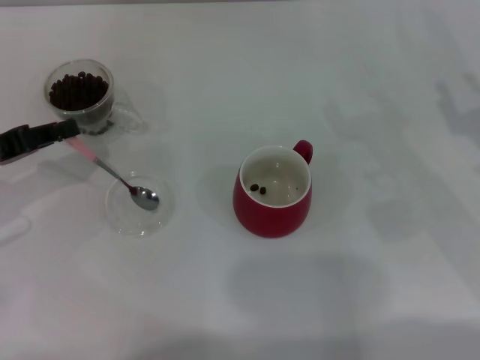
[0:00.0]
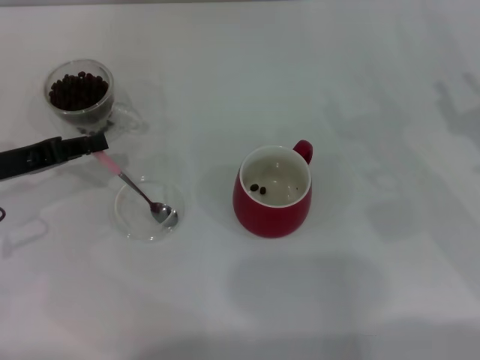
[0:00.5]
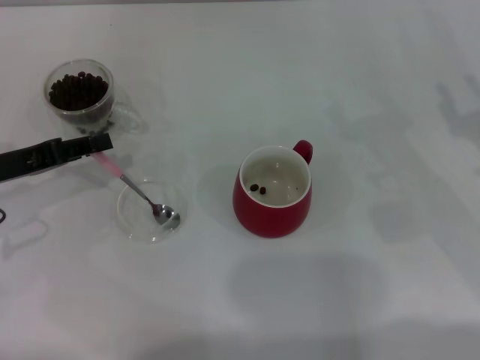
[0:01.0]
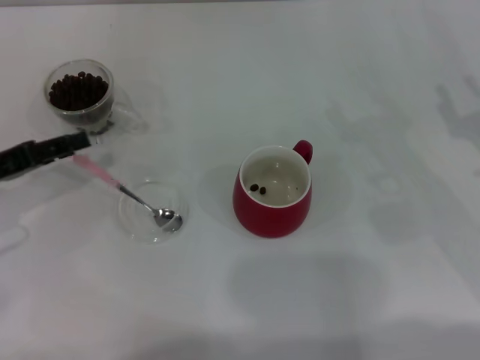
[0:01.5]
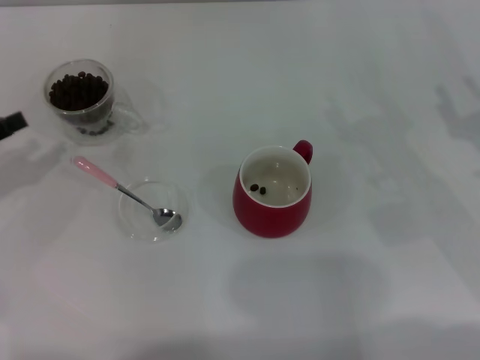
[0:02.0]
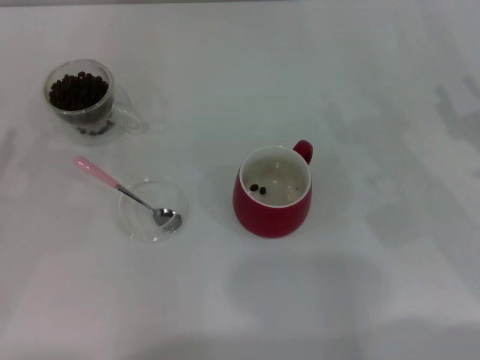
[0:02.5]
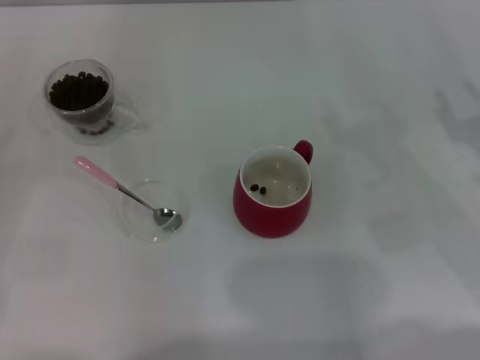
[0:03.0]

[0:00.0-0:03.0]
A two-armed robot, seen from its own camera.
Task of the whole recording: Use a pink spoon to take out the coffee beans from the glass and pour them into the red cup.
0:00.0 to 0:01.5: The left gripper opens its fingers.
0:01.5 to 0:03.0: The left gripper travels to the left and backward by approximately 10 cm.

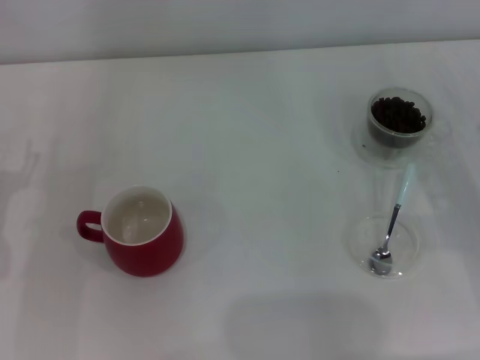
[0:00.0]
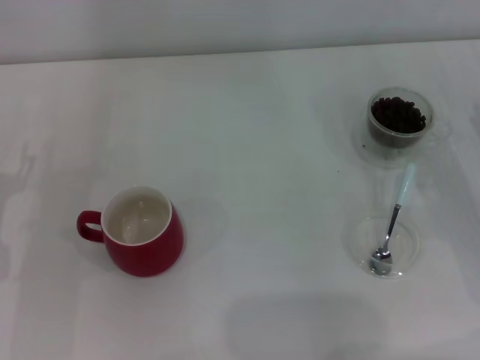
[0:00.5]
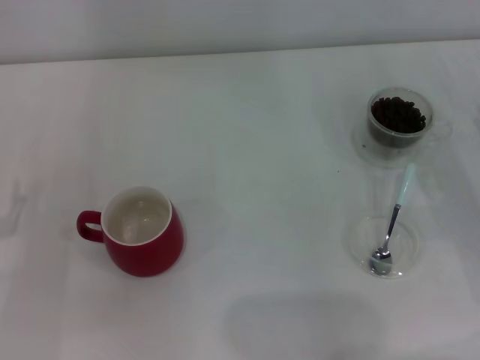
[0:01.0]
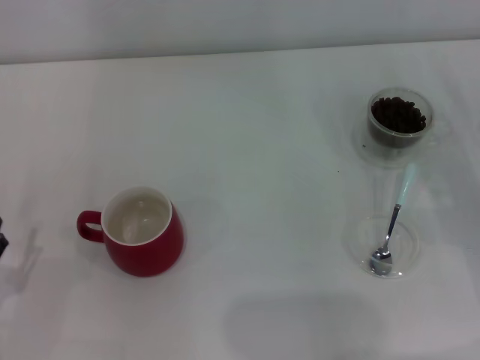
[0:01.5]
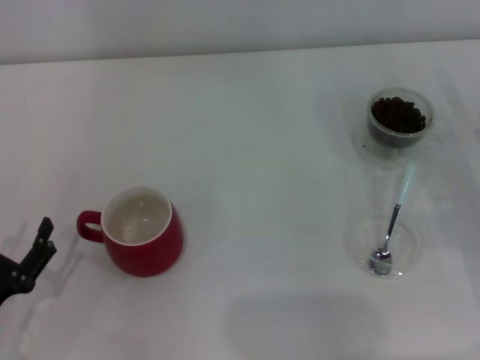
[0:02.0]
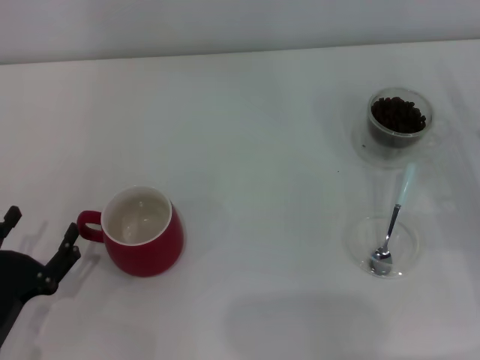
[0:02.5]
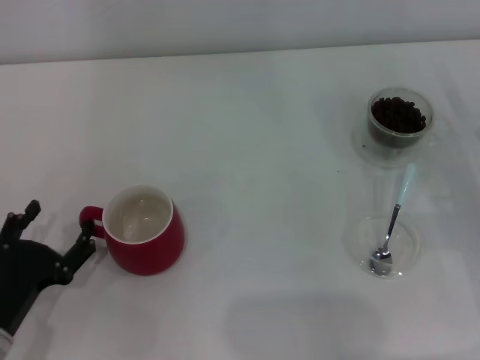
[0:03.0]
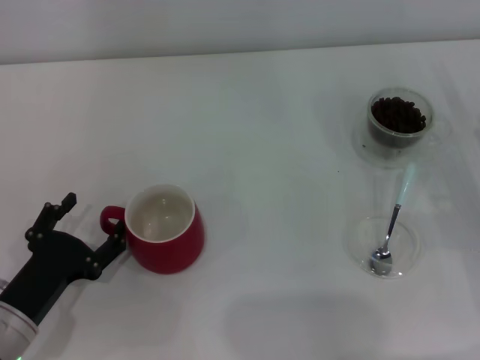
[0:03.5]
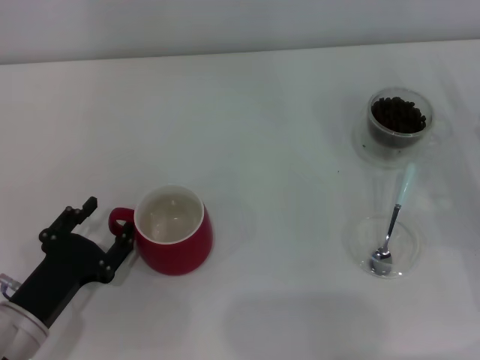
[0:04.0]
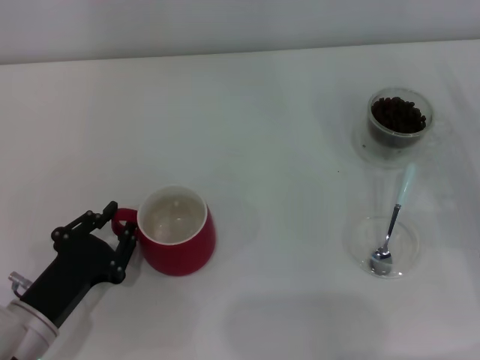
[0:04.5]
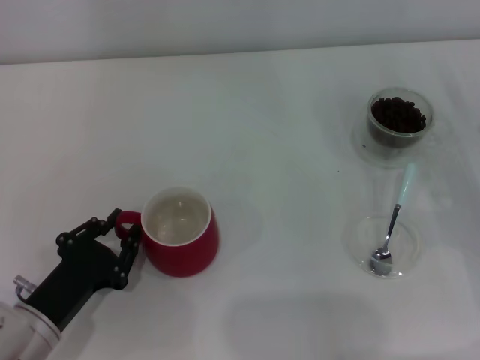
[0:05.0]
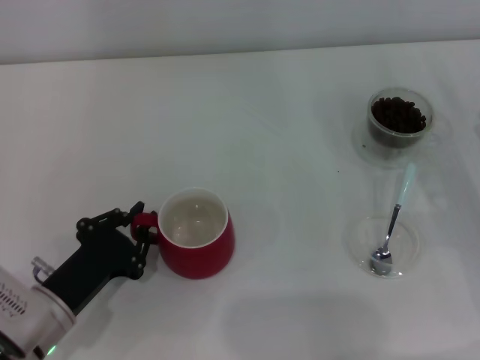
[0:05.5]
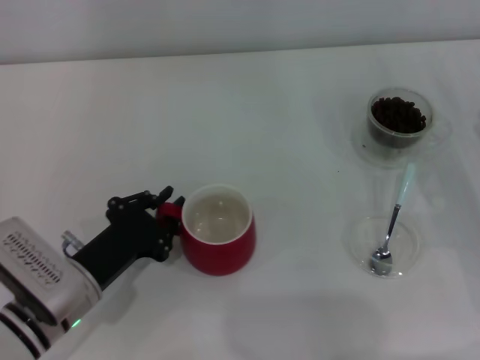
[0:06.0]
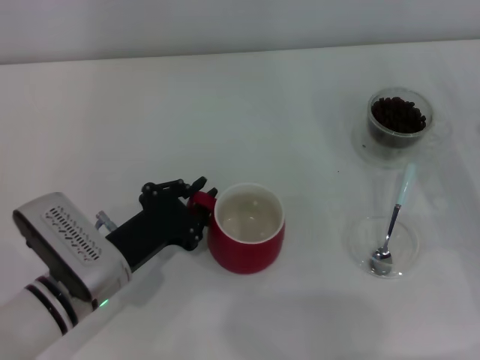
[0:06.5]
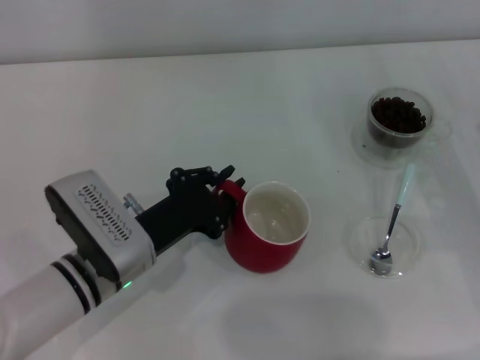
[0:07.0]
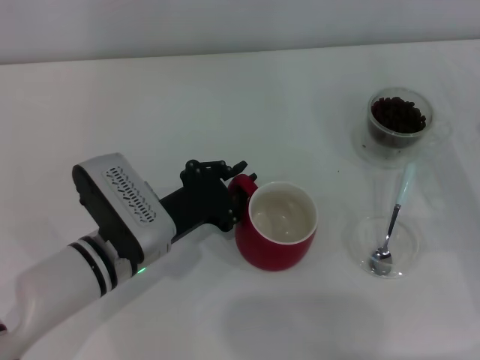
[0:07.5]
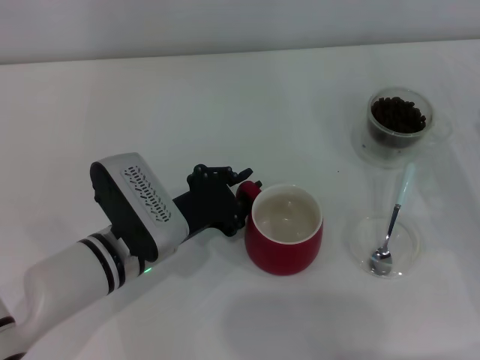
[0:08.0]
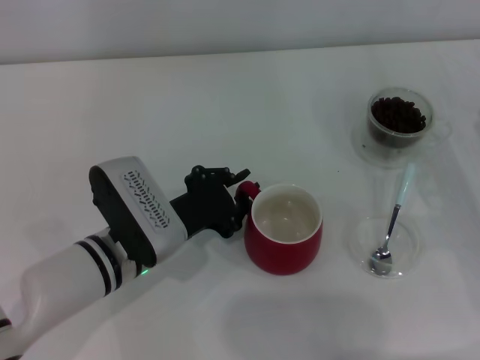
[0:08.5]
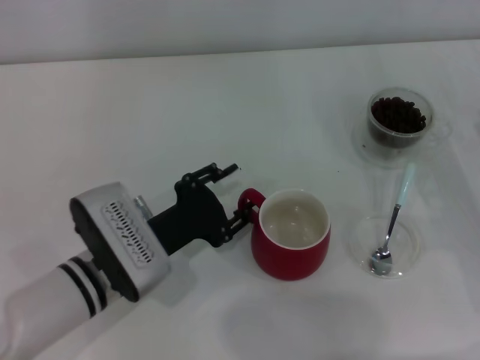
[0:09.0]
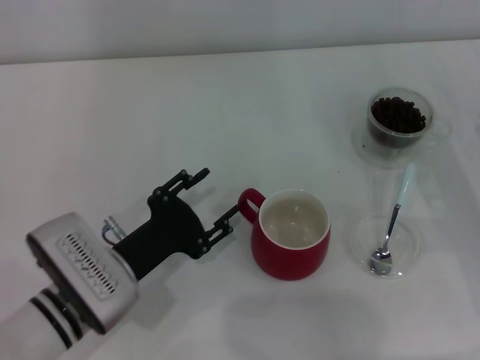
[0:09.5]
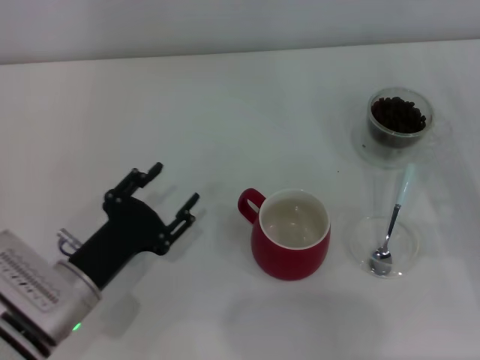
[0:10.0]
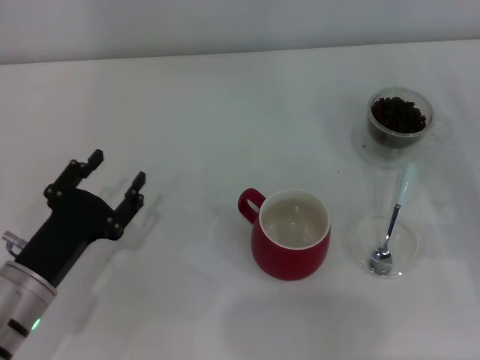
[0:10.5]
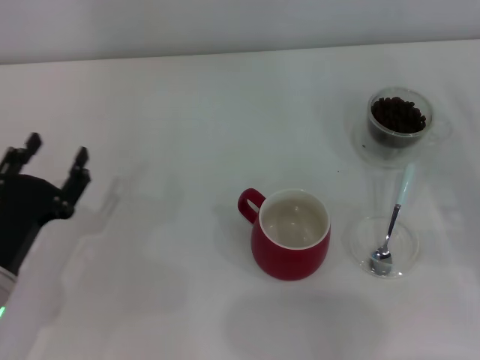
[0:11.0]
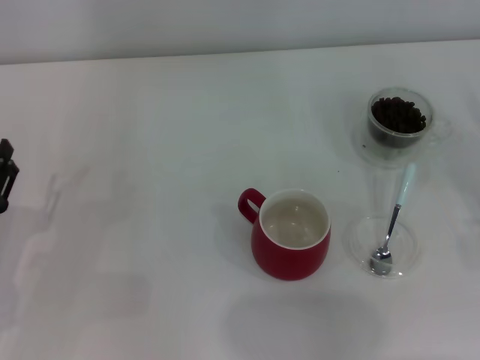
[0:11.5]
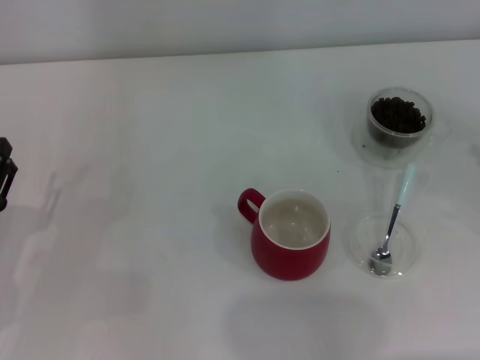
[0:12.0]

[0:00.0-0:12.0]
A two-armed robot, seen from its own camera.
Task of the whole recording: Use a blue spoon to take out the coffee beans from the glass and pour them into the red cup.
Step, 0:00.0 to 0:09.5: Move the cup to the center of view with the left gripper.
0:00.0 to 0:02.0: The left gripper travels backward by some 10 cm.
0:02.0 to 0:04.0: The left gripper changes place by approximately 5 cm.
0:04.0 to 0:06.0: The left gripper moves roughly 5 cm, and closes.
0:06.0 to 0:08.0: The left gripper is displaced to the right by roughly 10 cm.
0:08.0 to 0:10.0: The left gripper moves to the left and backward, approximately 10 cm, and opens.
0:10.0 to 0:12.0: The right gripper moves to the right, approximately 5 cm. Meanwhile the left gripper travels to the left by approximately 10 cm.

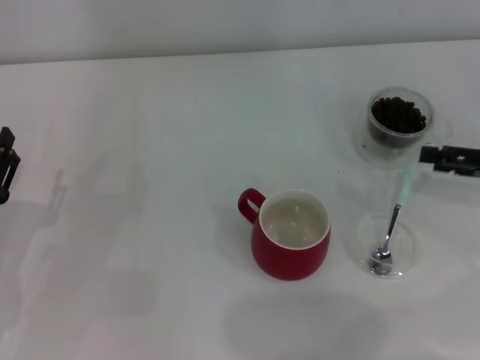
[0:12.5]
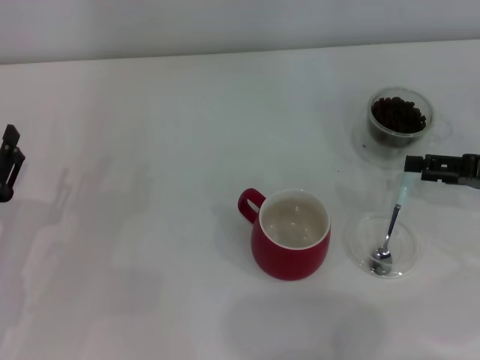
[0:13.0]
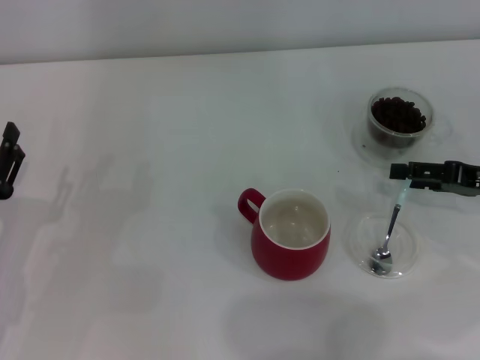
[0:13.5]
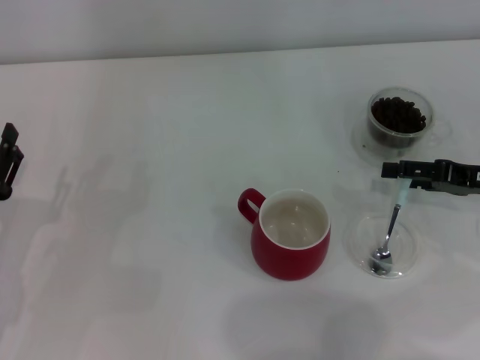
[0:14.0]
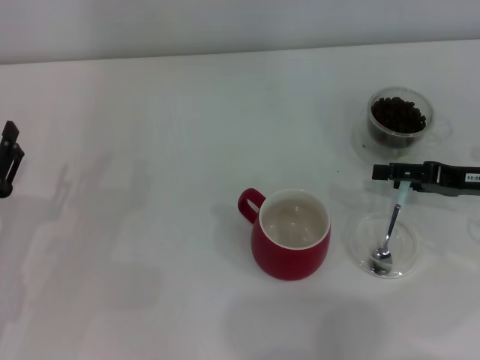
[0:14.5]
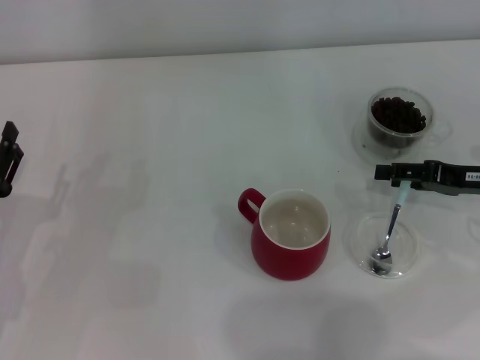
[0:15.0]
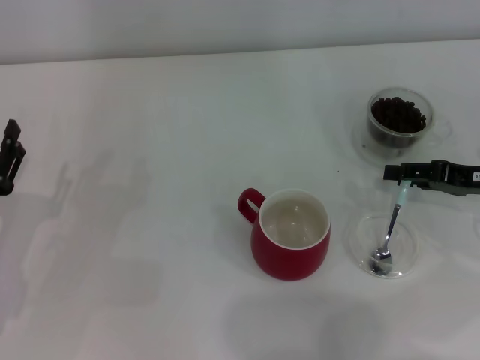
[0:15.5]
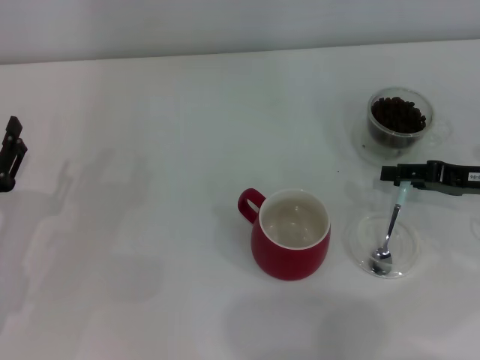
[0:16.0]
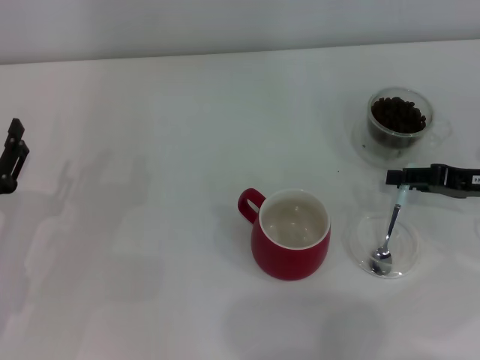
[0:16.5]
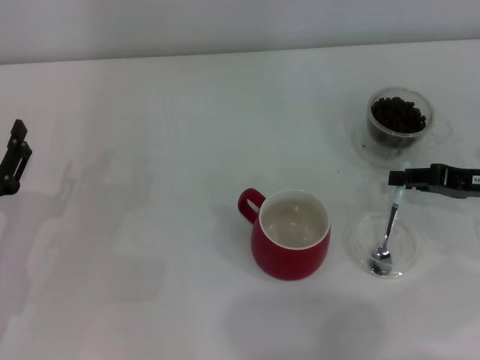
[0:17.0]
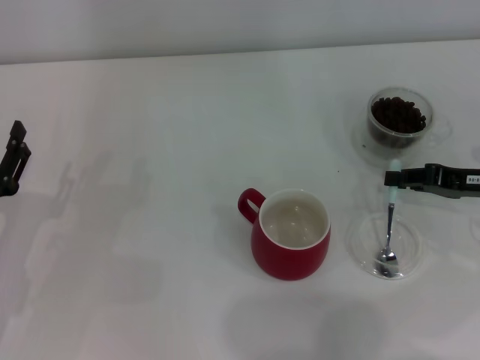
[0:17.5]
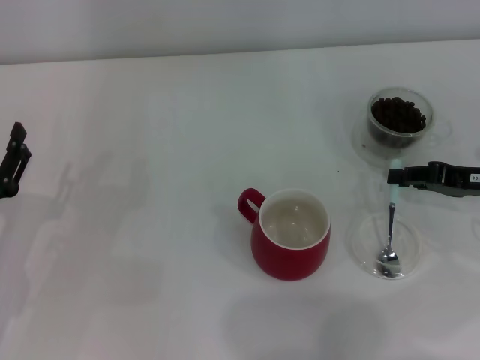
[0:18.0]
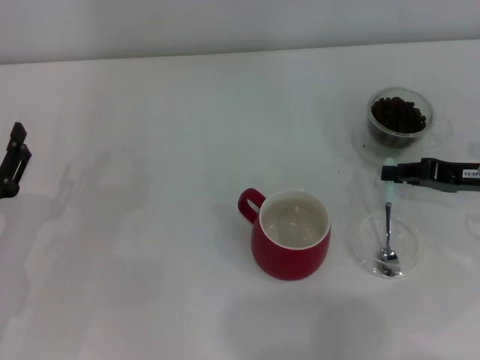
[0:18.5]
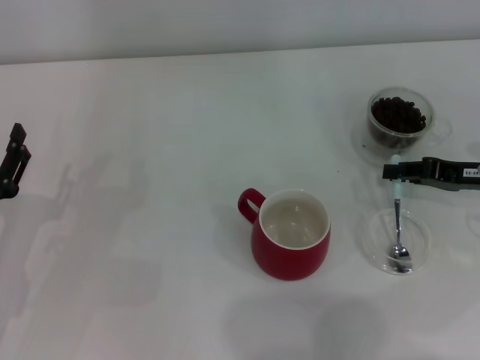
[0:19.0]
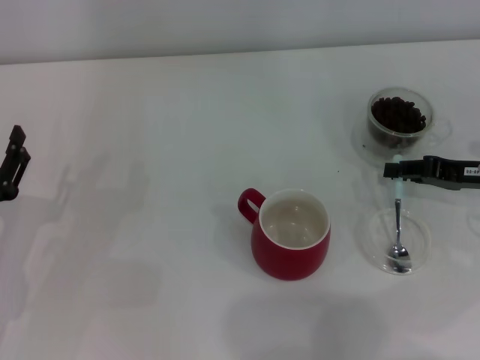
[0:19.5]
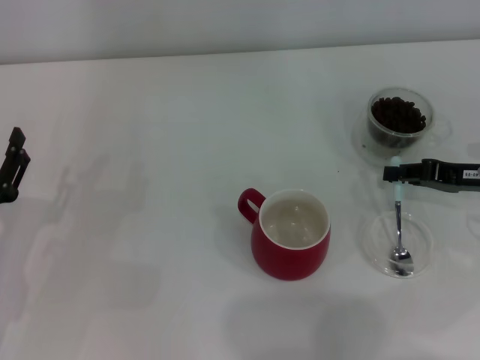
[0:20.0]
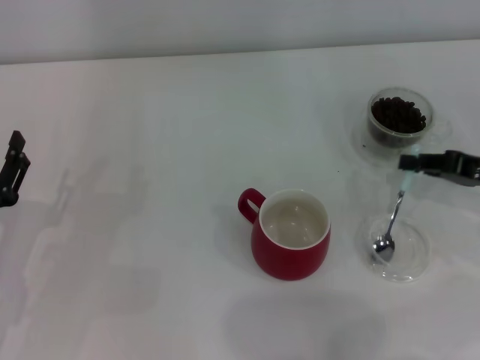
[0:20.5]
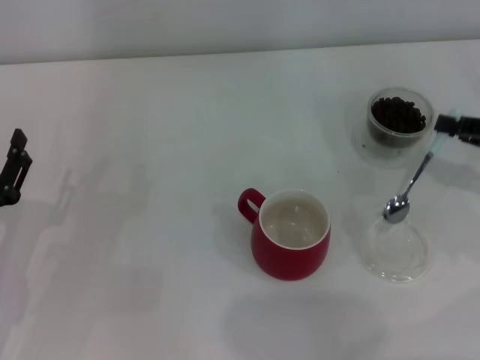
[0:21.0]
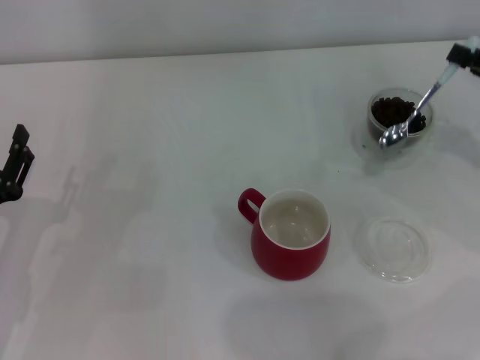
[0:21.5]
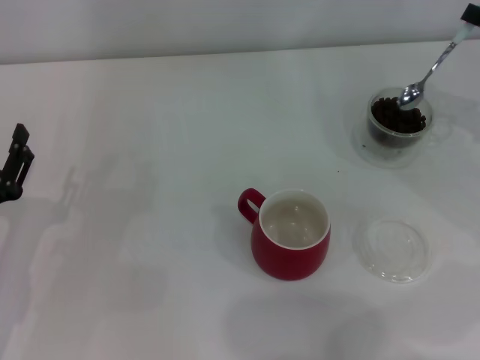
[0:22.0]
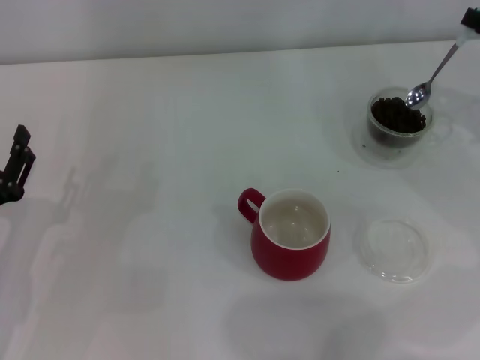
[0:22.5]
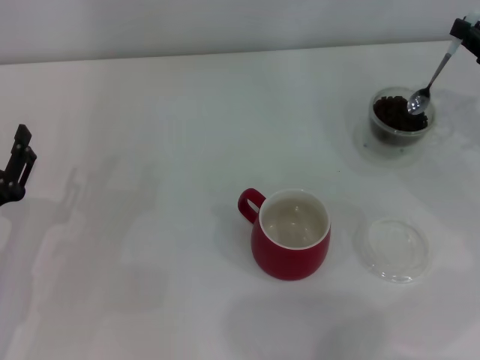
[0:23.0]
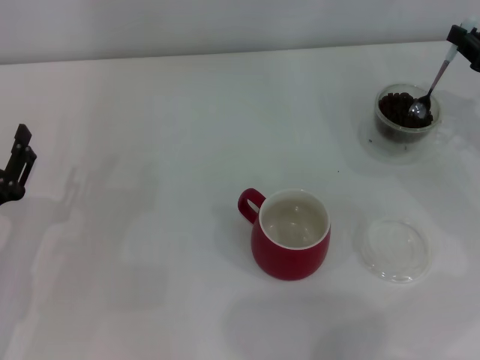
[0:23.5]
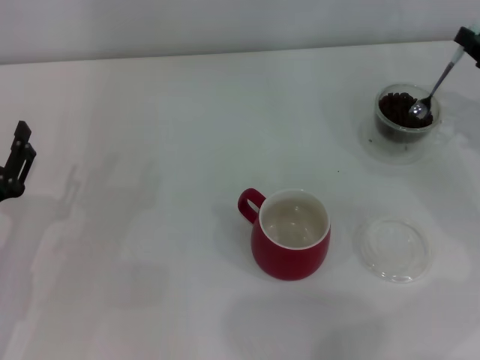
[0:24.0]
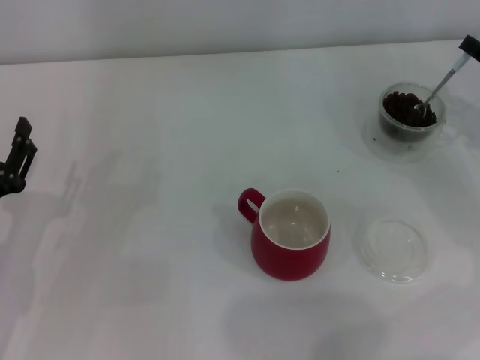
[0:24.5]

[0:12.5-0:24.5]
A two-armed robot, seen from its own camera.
Task of the whole recording: Use a blue spoon to take out the coffee beans from the glass and pour them into the red cup.
Step, 0:12.5 to 0:21.0: Pick up the spoon with the right gripper.
0:12.5 to 0:14.5: The right gripper ends up about 5 cm from where it was.
0:14.5 to 0:16.5: The right gripper closes its fingers.
0:16.5 to 0:18.5: The right gripper closes.
0:18.5 to 0:20.5: The grippers move only a little.
0:20.5 to 0:22.5: The right gripper goes roughly 5 cm upward.
0:22.5 to 0:24.5: There are only small adjustments of the grippers.
